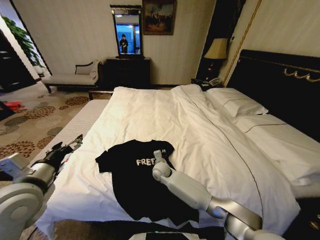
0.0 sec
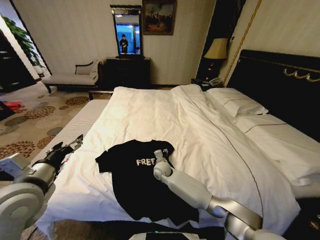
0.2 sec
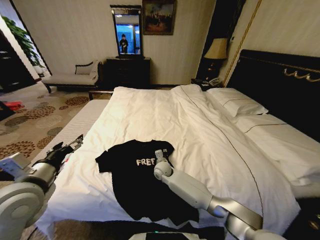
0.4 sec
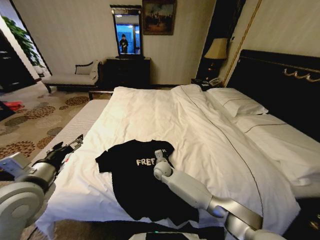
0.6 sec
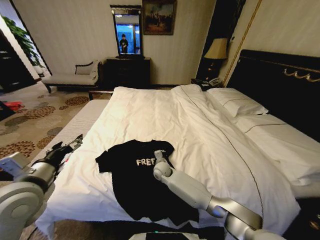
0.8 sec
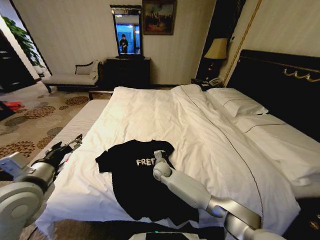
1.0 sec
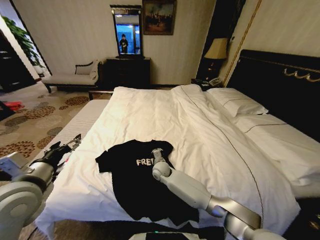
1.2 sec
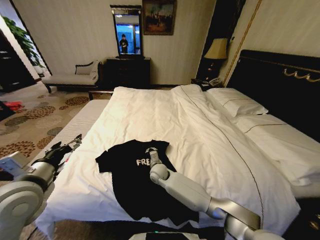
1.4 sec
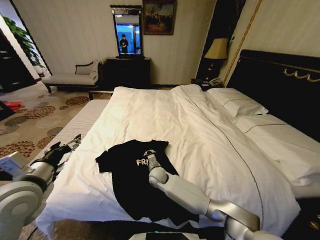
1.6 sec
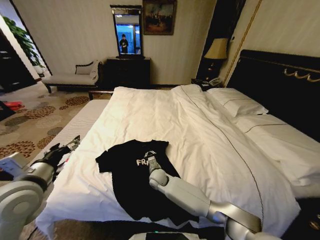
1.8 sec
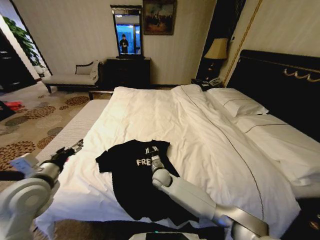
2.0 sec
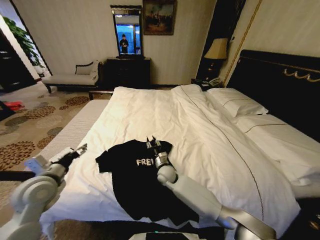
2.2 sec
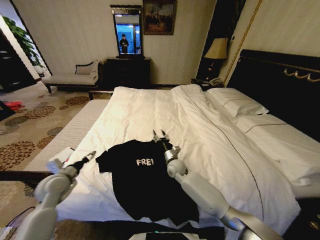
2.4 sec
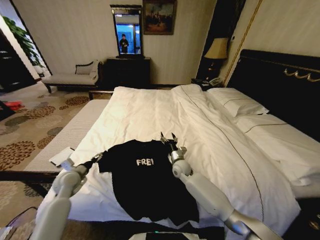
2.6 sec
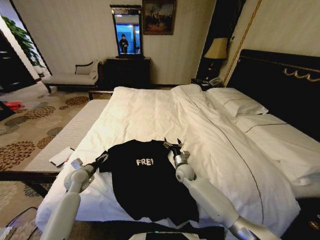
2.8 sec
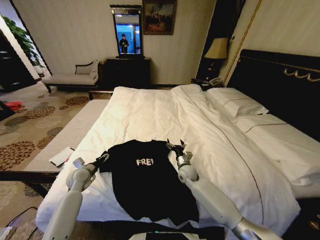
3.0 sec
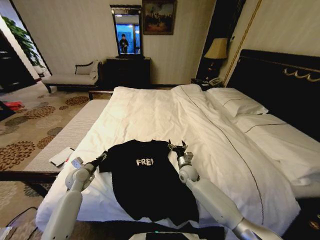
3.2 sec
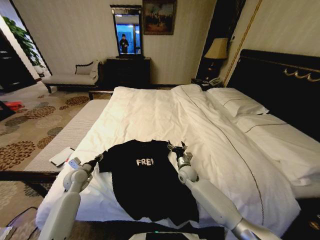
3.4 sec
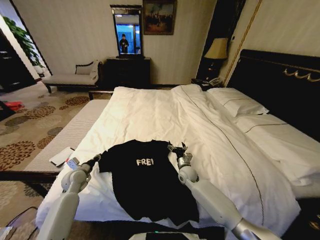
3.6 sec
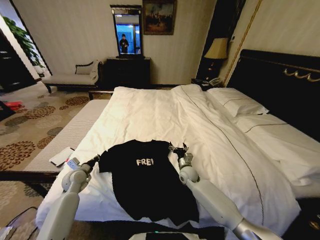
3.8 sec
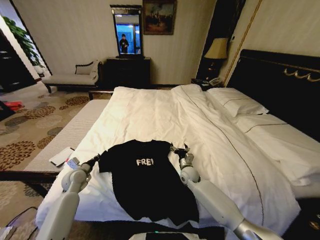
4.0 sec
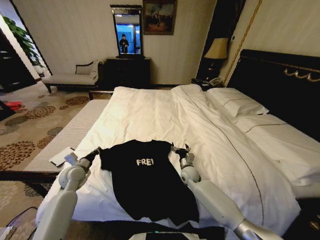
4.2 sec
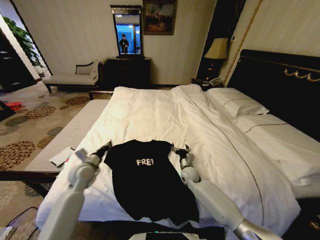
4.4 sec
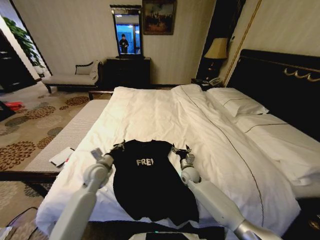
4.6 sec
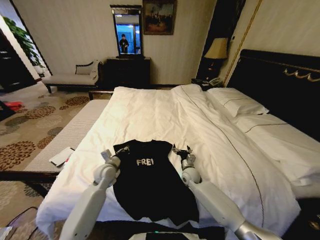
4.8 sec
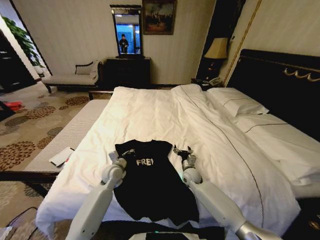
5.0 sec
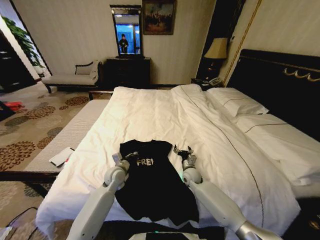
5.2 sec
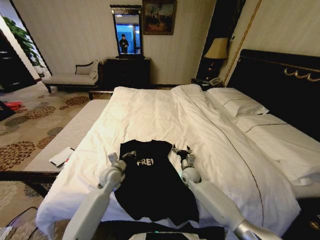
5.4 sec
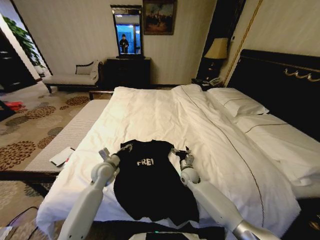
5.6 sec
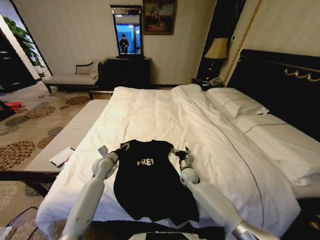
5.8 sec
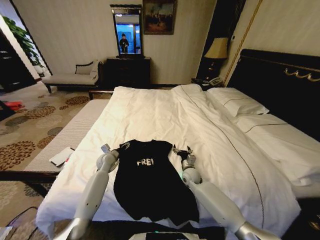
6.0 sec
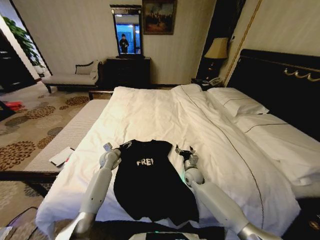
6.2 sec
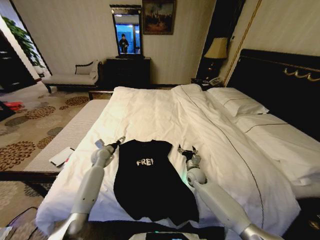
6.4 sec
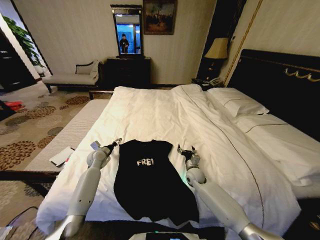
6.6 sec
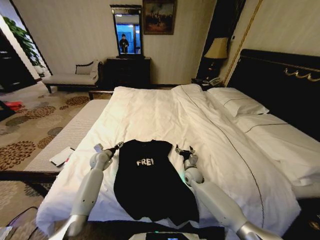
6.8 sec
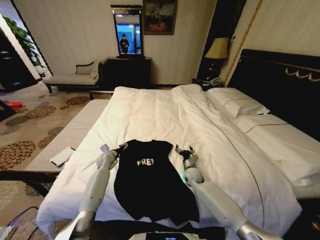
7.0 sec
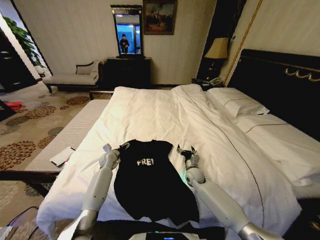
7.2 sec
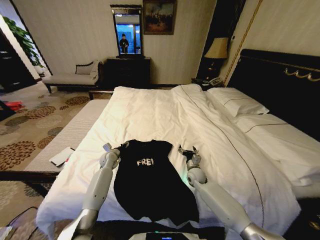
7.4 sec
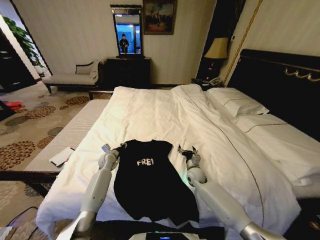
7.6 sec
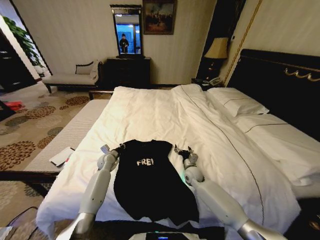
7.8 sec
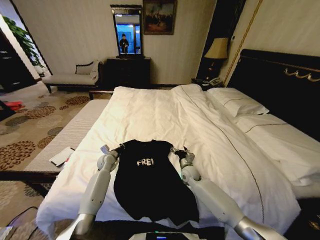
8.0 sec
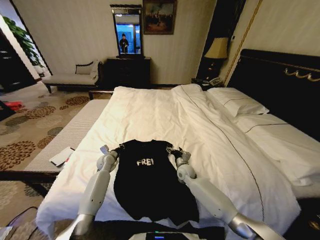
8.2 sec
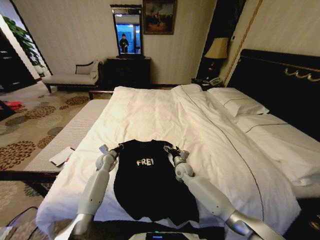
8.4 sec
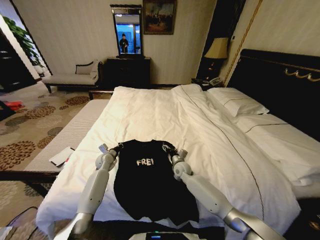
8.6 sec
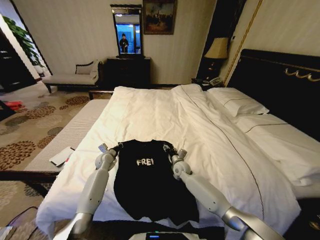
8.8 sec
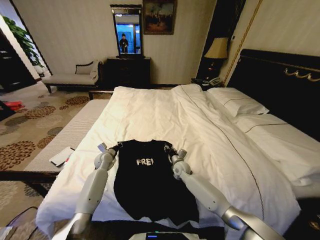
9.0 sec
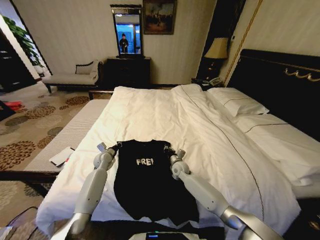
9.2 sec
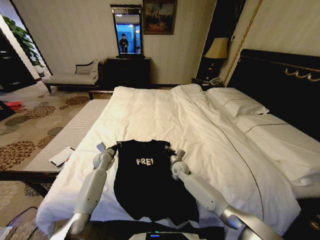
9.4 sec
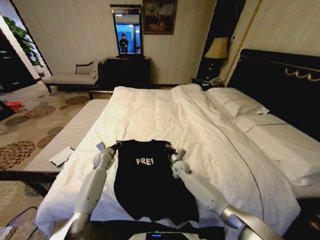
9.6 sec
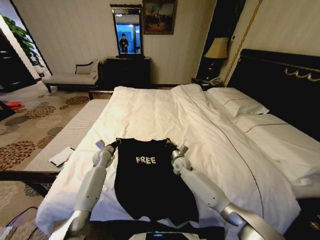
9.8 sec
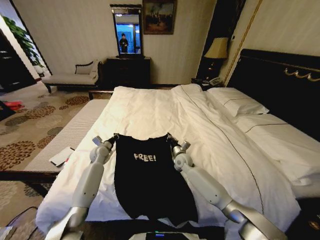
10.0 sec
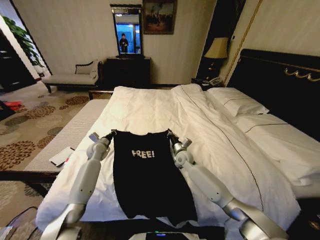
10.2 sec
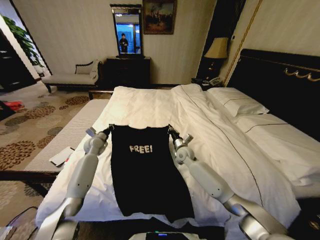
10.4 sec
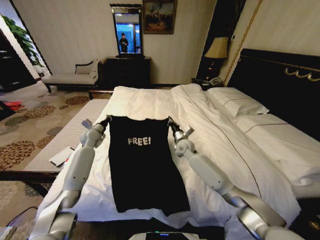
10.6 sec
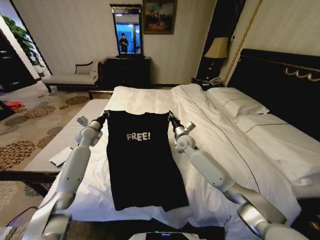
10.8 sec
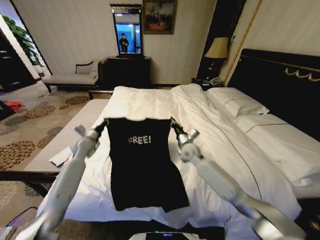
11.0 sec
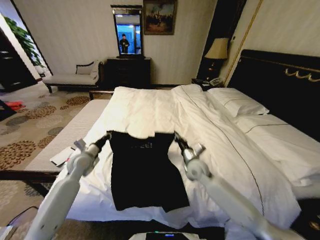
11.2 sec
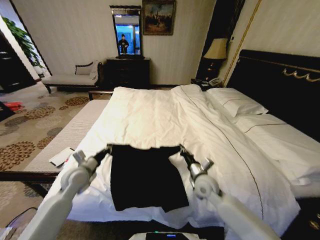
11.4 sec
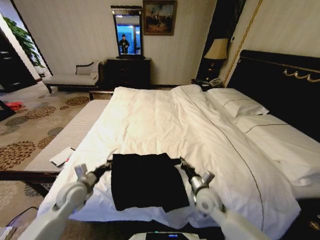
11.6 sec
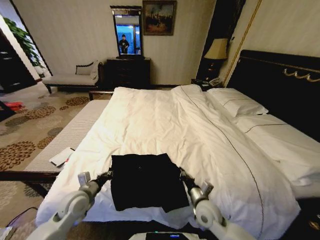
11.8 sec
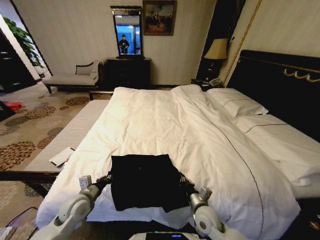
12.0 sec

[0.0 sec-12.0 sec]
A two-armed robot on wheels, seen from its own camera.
Task of the whole recording: Fold the clothes on the bed.
0.0 sec to 1.6 sec: The right gripper closes.
1.6 sec to 3.0 sec: The right gripper heads to the right, covering some 15 cm, and opens up. Meanwhile the left gripper is displaced downward and forward by approximately 25 cm.
3.0 sec to 4.4 sec: The left gripper moves upward, some 5 cm, and closes up.
4.4 sec to 6.0 sec: The left gripper shifts some 15 cm forward and downward, and opens up.
6.0 sec to 7.6 sec: The left gripper closes.
7.6 sec to 9.0 sec: The right gripper goes roughly 5 cm to the left, and closes its fingers.
9.0 sec to 10.4 sec: Both grippers travel together upward, approximately 10 cm. The right gripper closes up.
10.4 sec to 12.0 sec: Both grippers travel together backward, roughly 30 cm.

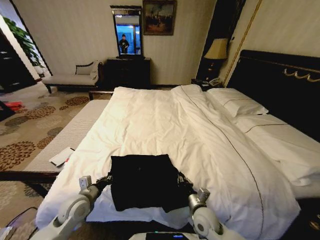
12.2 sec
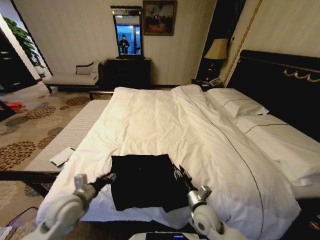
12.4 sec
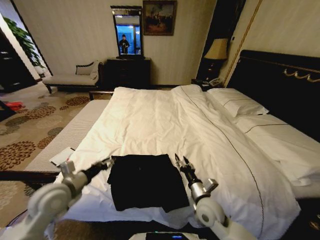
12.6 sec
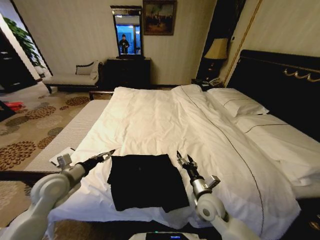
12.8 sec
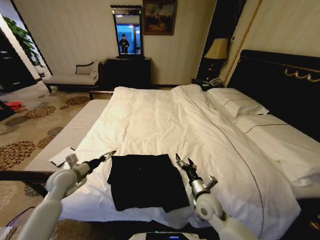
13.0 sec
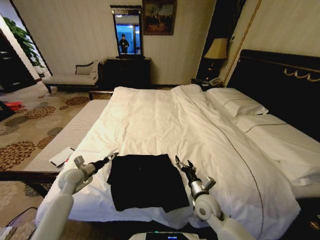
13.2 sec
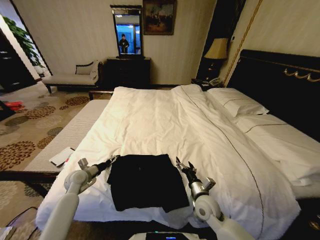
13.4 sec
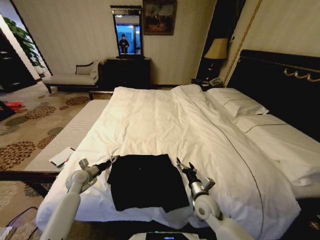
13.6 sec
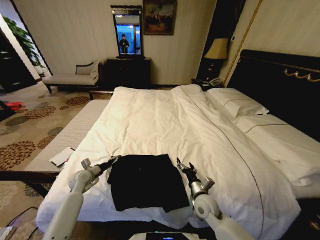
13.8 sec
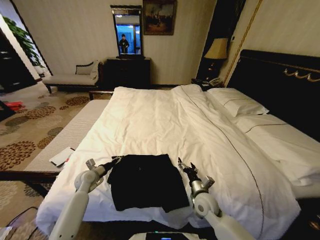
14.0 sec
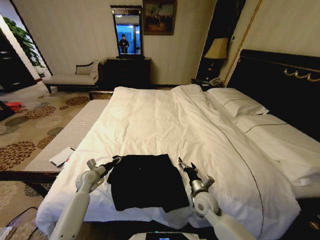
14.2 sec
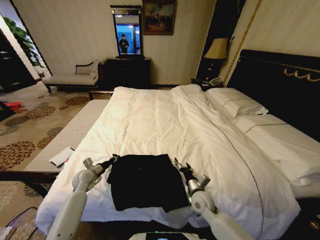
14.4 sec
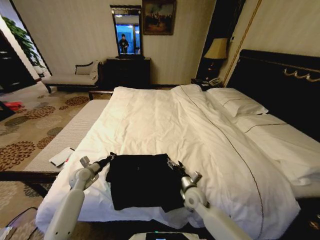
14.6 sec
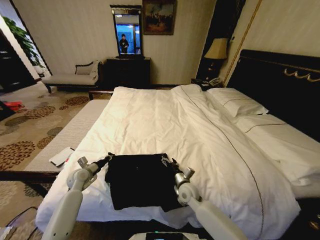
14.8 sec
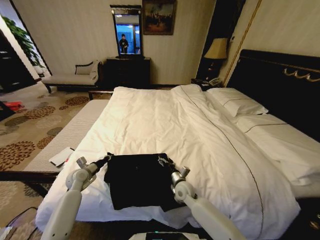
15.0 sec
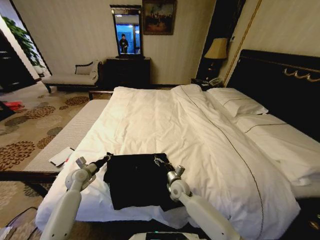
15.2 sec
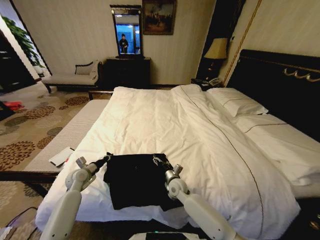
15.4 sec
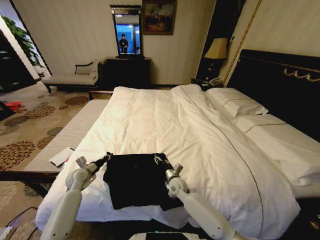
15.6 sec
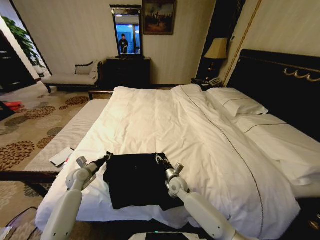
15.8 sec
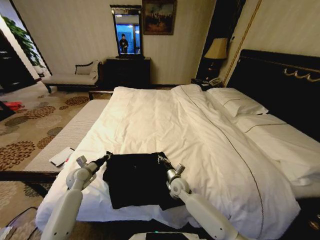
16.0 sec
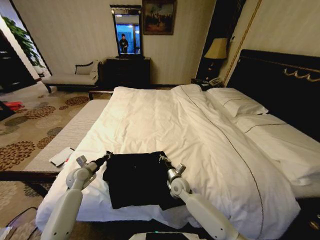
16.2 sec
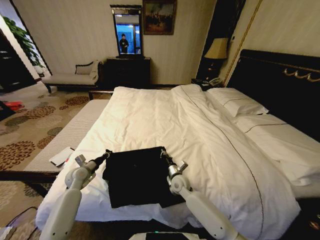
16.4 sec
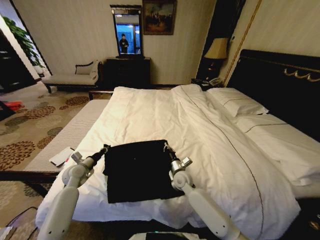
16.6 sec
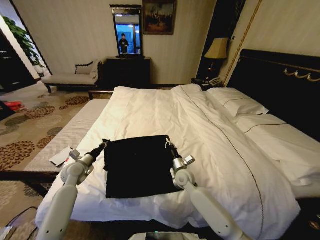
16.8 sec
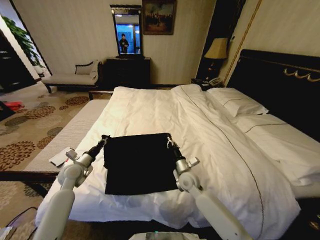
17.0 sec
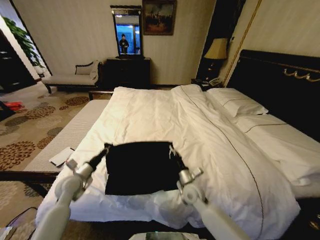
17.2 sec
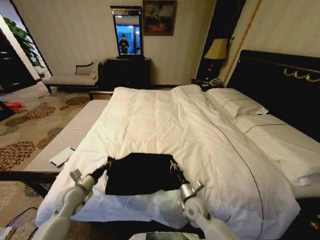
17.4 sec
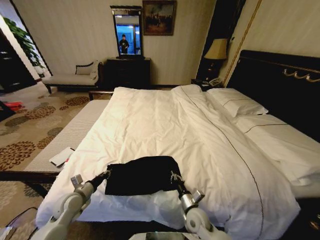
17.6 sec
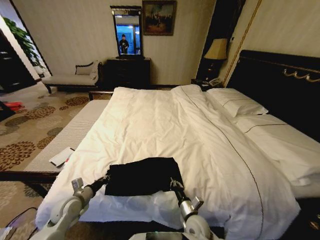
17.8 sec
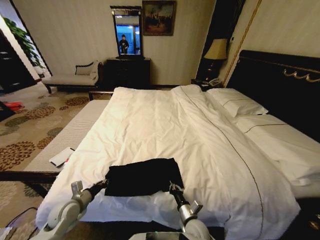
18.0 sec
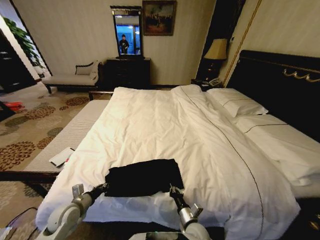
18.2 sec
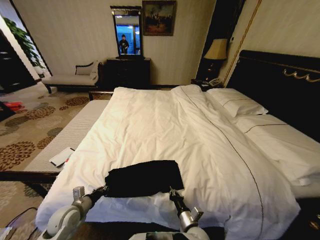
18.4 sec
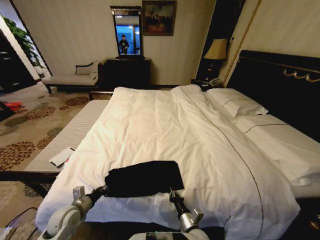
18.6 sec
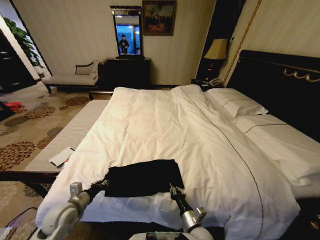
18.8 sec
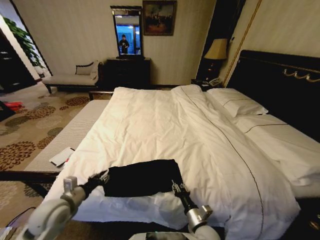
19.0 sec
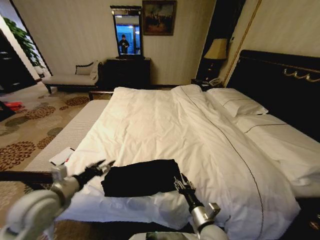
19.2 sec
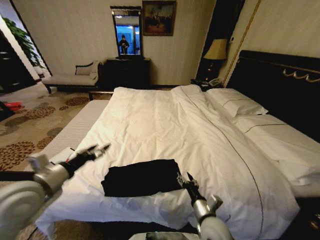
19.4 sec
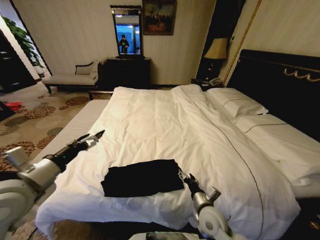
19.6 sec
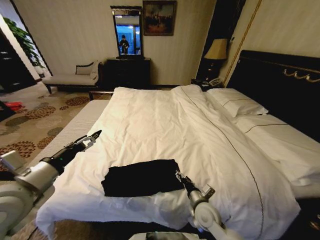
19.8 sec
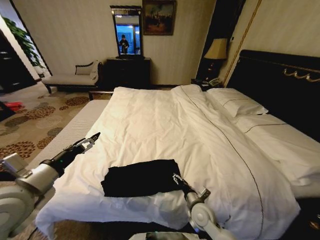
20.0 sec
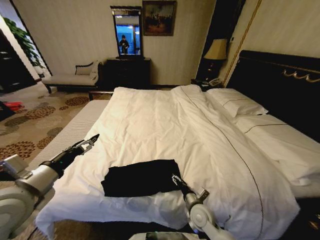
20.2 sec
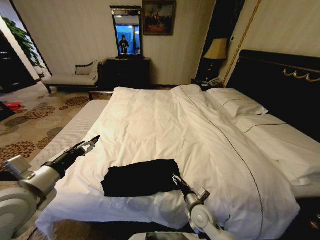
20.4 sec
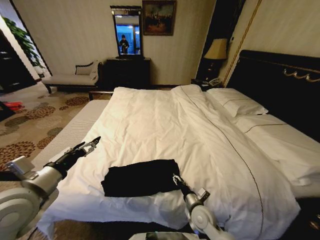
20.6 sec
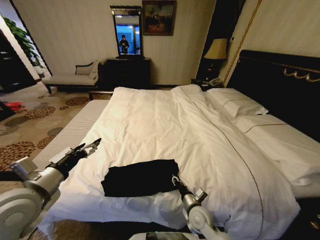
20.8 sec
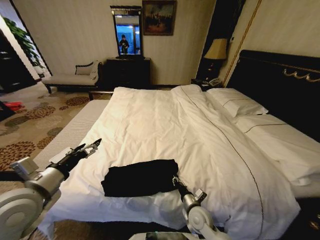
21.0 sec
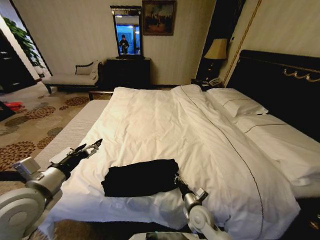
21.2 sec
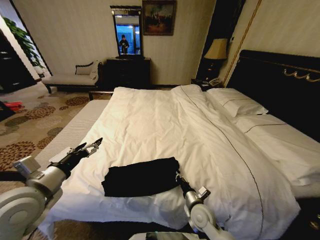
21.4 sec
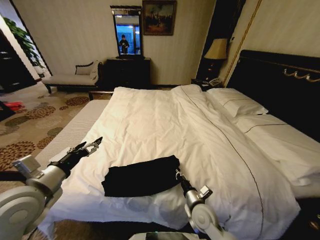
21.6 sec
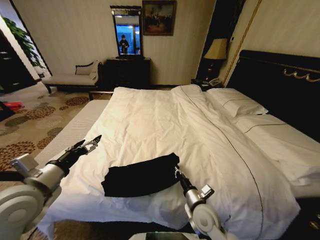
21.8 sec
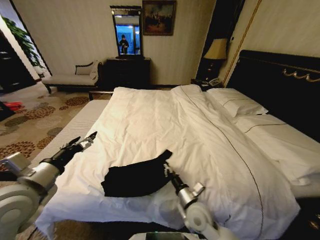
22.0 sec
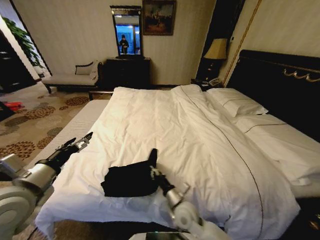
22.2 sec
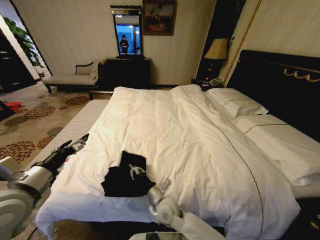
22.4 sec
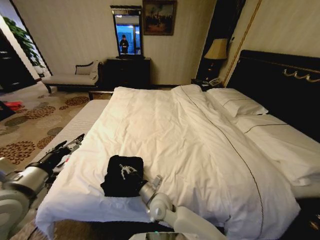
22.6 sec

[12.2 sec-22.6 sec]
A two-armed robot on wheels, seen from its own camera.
Task of the whole recording: Fold the clothes on the bed.
12.2 sec to 13.6 sec: The right gripper opens its fingers. Meanwhile the left gripper shifts about 15 cm forward and to the left, reaches approximately 10 cm upward, then returns, and opens.
13.6 sec to 15.2 sec: The right gripper shifts some 15 cm to the left and forward, while the left gripper closes up.
15.2 sec to 16.6 sec: The right gripper changes place by roughly 5 cm, and closes.
16.6 sec to 18.2 sec: The grippers both shift backward by about 20 cm.
18.2 sec to 19.6 sec: The left gripper travels upward by some 25 cm, and opens; the right gripper is displaced upward by approximately 10 cm, and opens up.
19.6 sec to 21.2 sec: The right gripper moves downward, approximately 5 cm, and closes.
21.2 sec to 22.6 sec: The right gripper moves to the left, some 15 cm.
